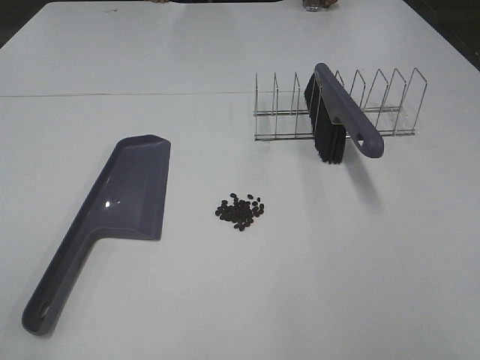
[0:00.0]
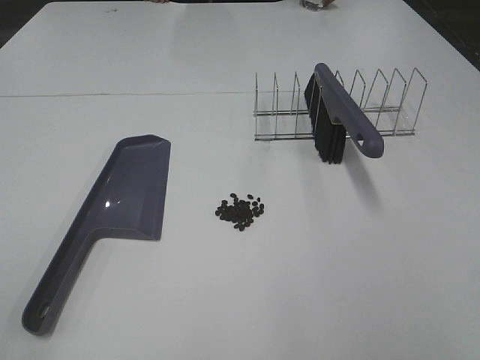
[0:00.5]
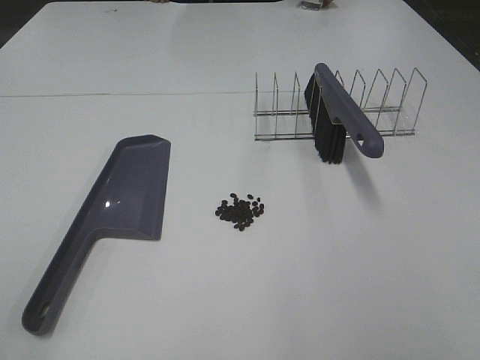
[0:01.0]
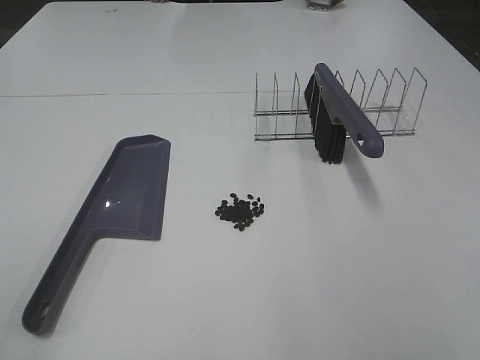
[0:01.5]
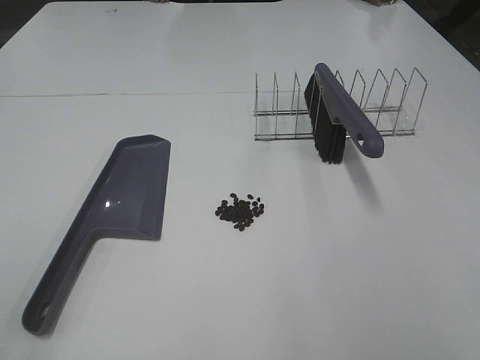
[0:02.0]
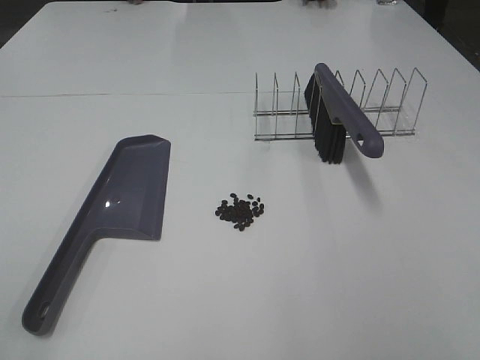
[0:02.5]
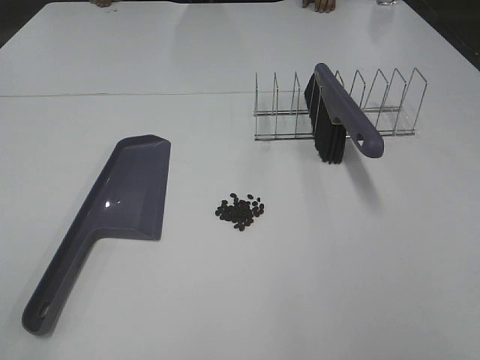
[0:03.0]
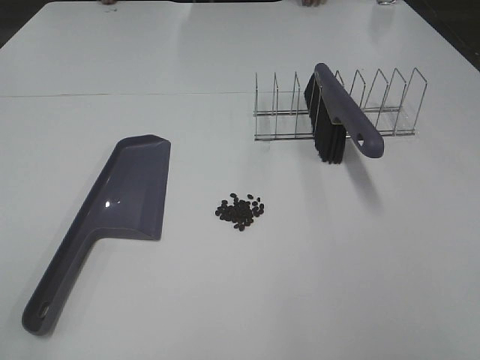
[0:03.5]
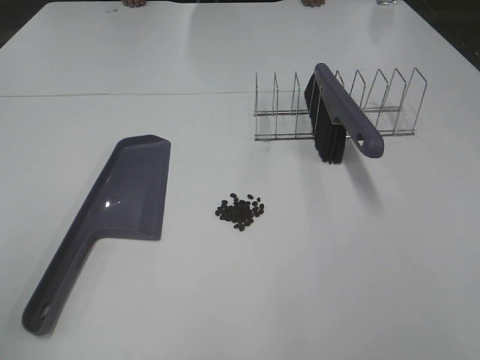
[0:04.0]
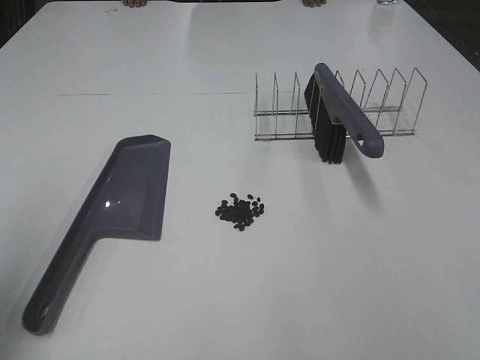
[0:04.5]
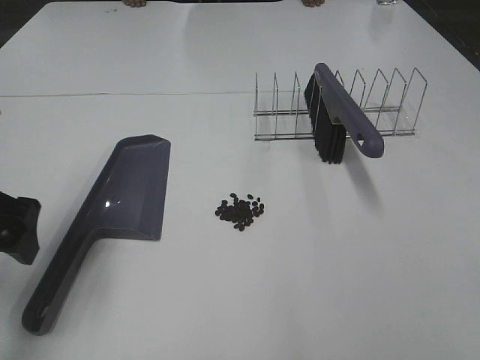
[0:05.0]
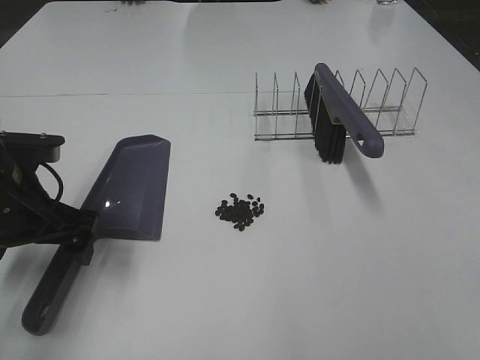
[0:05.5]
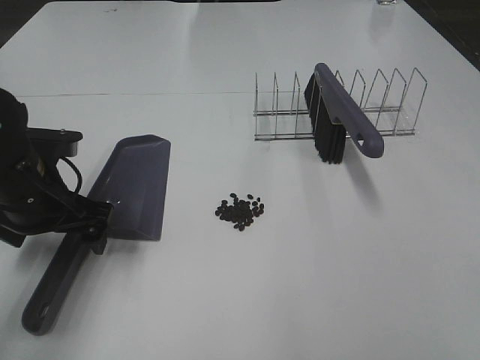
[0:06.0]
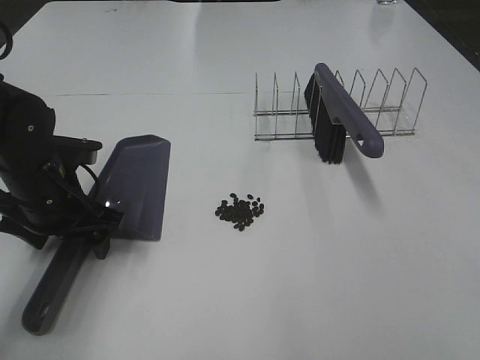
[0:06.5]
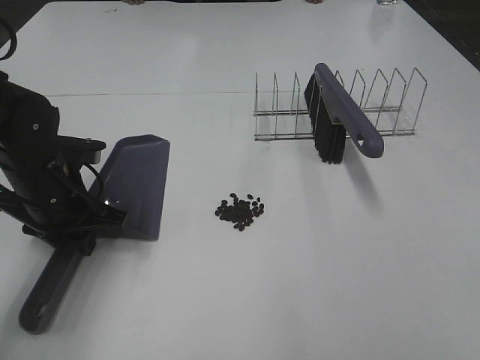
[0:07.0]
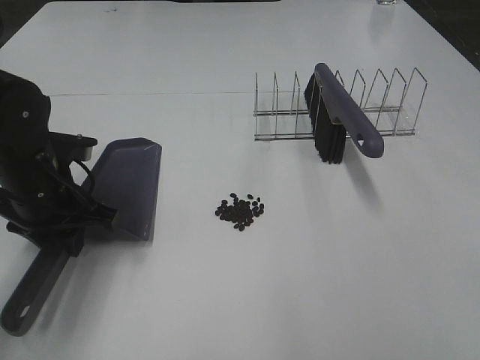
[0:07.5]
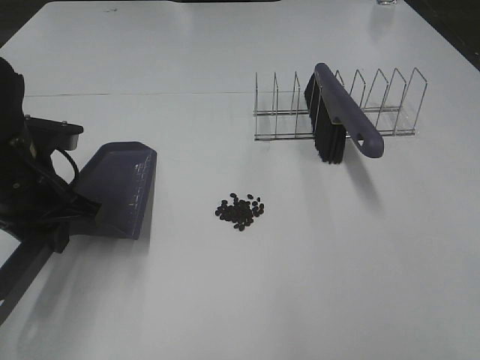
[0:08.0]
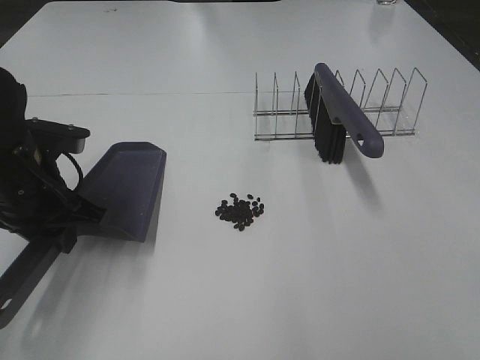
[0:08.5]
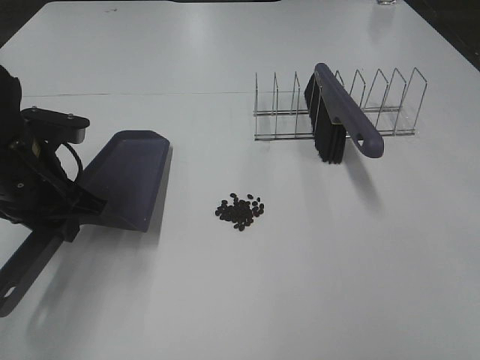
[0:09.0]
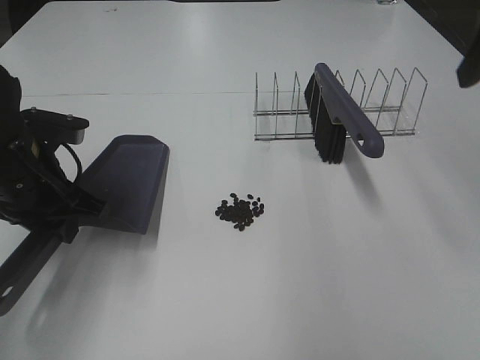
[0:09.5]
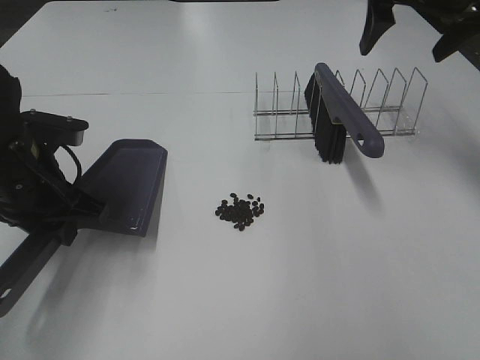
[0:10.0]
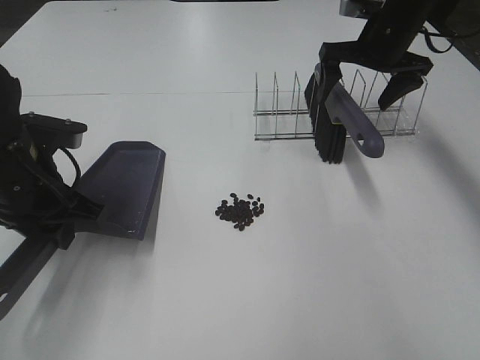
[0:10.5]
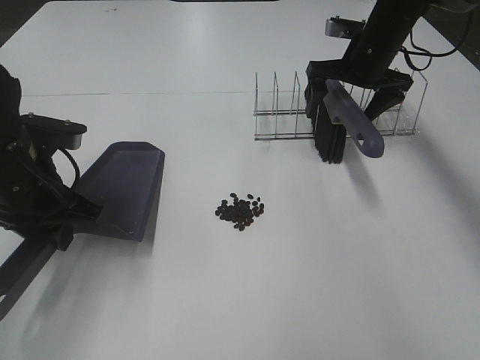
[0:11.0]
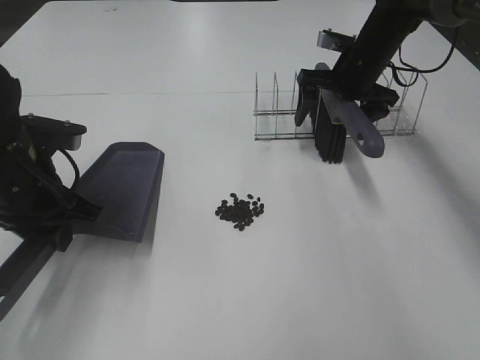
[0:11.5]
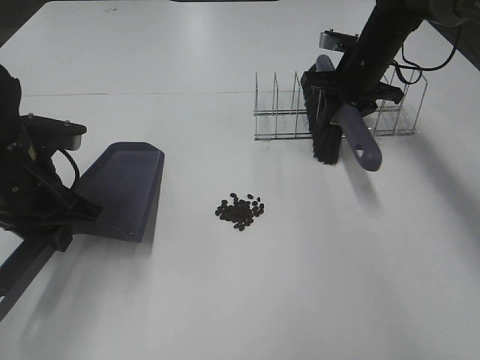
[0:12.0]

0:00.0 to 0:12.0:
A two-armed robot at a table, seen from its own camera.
Task of the whole recording: Sweep Coffee Bean.
Step, 0:00.0 to 0:07.0: Left hand: grab the dustpan.
Step, 0:08.5 to 0:12.0: Right hand:grab the broom.
0:00.0 to 0:02.0: Both grippers stay about where they are.
0:04.0 to 0:06.0: The left gripper is displaced forward, downward and to the right by roughly 30 cm.
0:06.0 to 0:08.0: The left gripper closes.
0:08.0 to 0:10.0: The right gripper travels forward by roughly 40 cm, and opens.
0:10.0 to 0:12.0: The right gripper moves downward and forward, roughly 15 cm, and closes up.

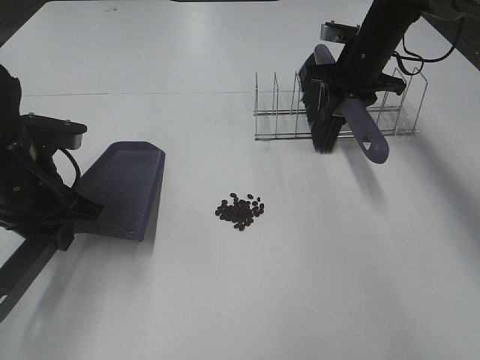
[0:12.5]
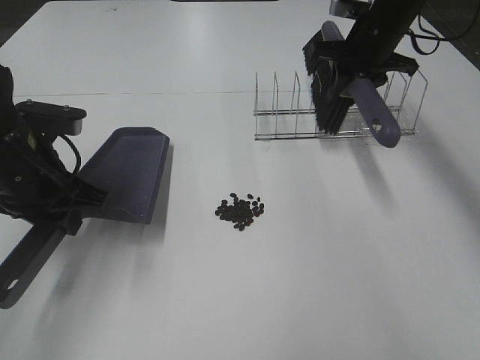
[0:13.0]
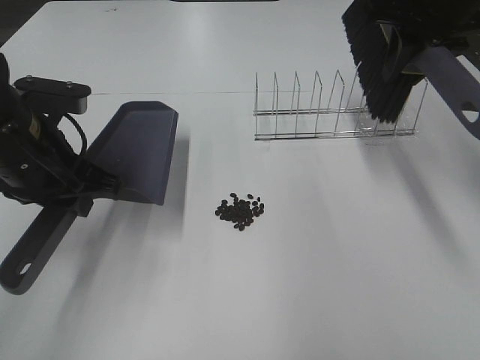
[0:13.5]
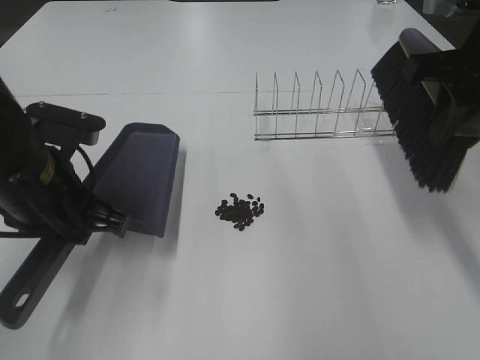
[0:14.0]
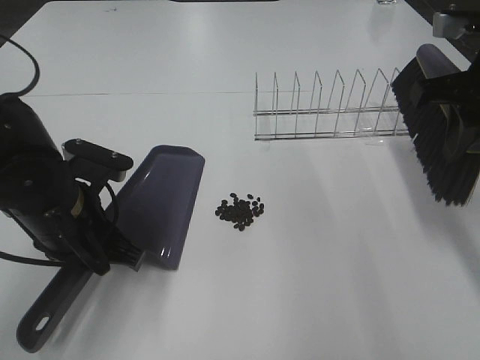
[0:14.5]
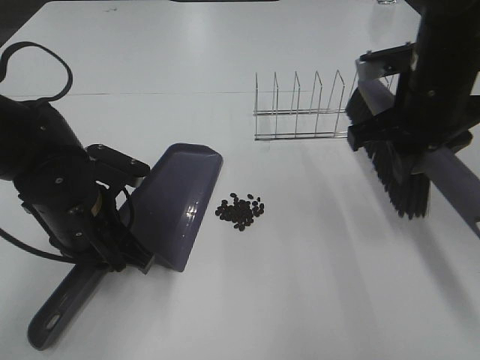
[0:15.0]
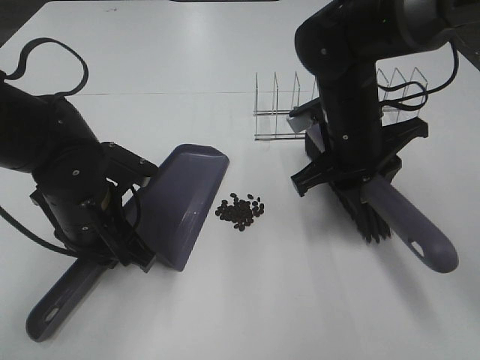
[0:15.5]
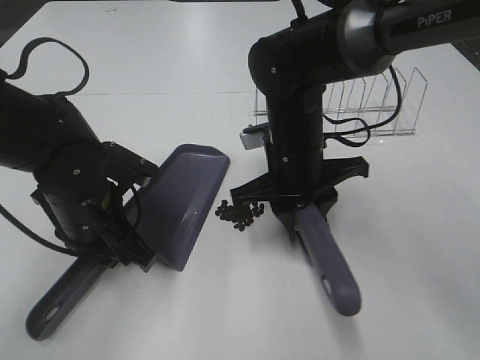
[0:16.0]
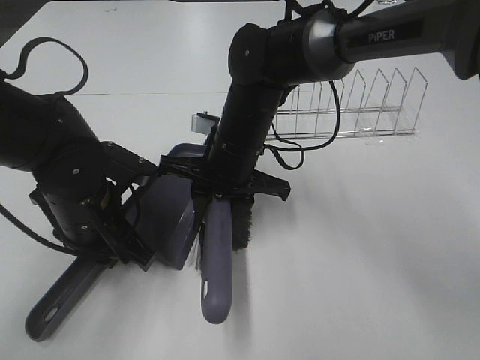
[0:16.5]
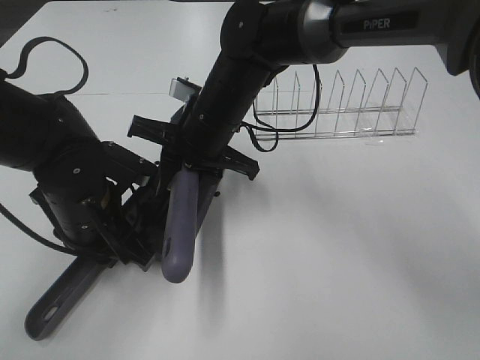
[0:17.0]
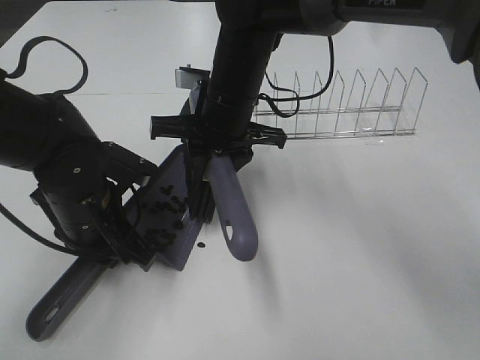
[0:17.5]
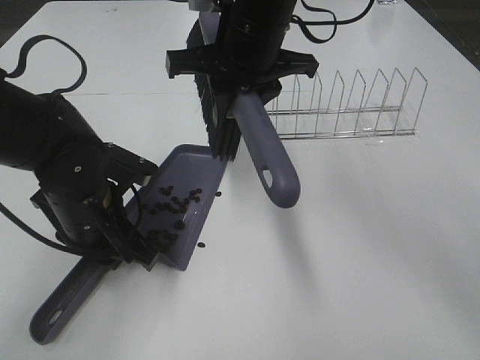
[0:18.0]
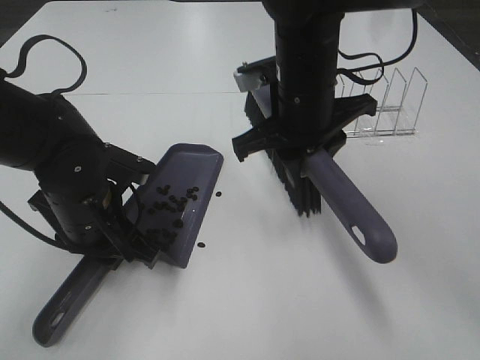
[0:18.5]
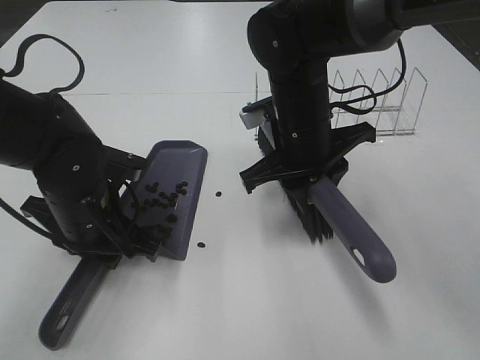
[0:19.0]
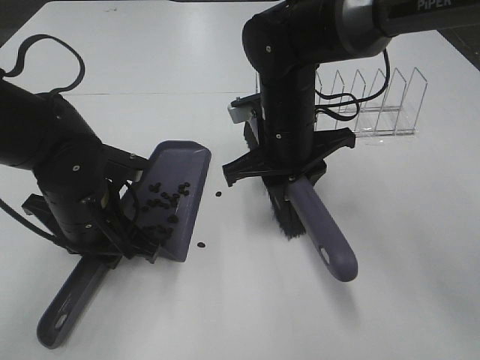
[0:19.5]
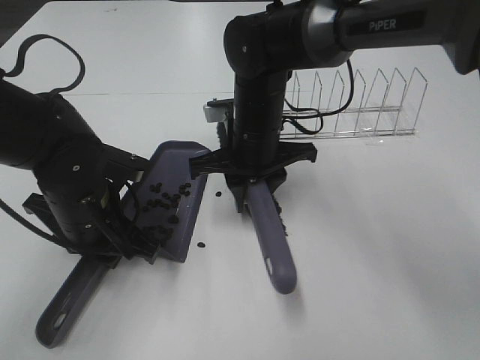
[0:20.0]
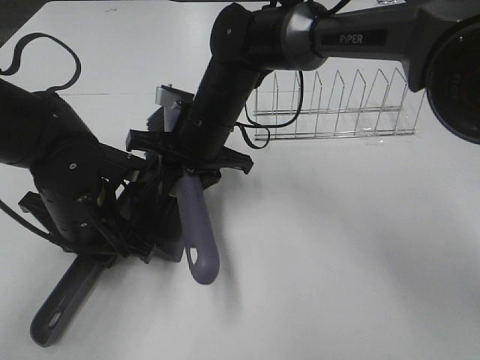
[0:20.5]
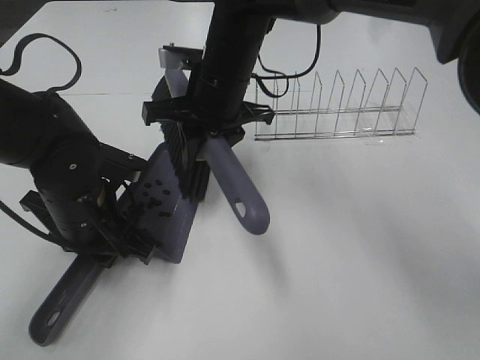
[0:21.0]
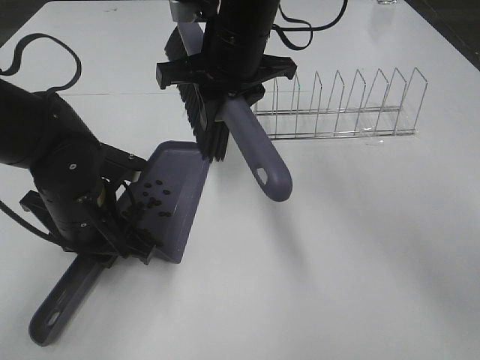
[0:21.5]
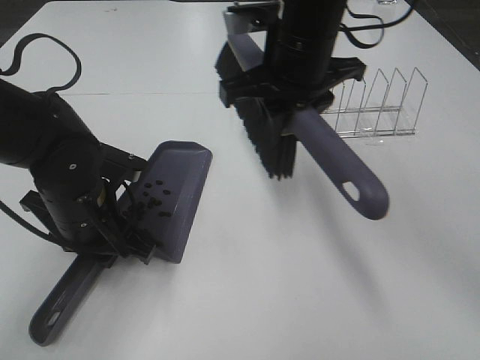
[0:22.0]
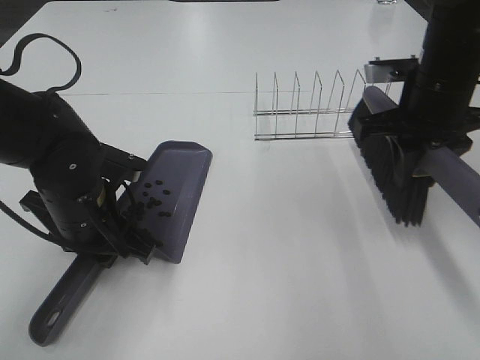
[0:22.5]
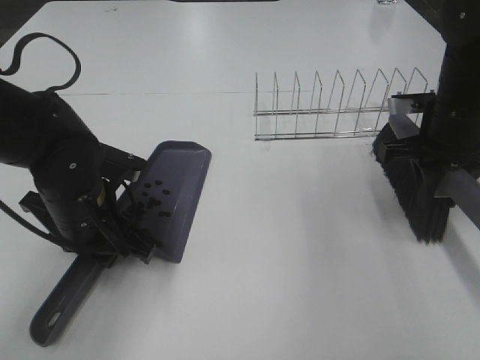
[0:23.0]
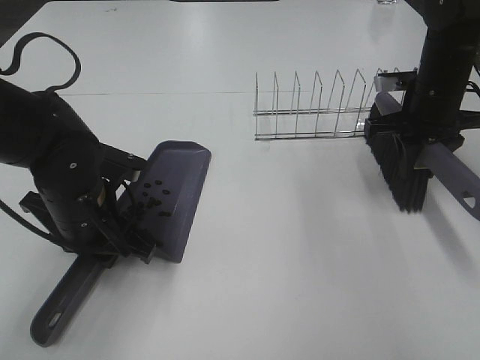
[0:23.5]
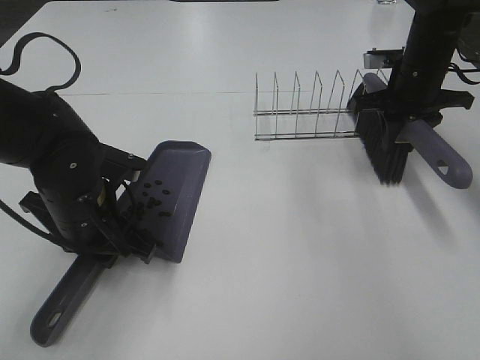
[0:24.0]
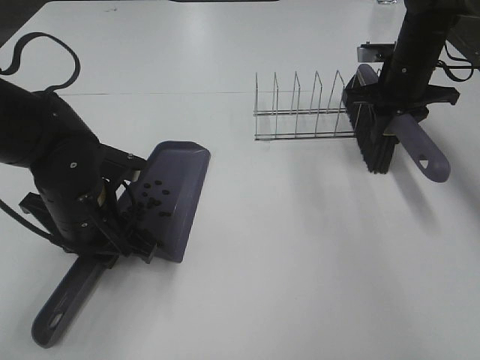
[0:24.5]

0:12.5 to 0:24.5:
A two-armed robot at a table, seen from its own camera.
Task of the whole recording: Sweep Coffee Bean.
Step, 0:12.5 to 0:15.5: Left hand: move the dustpan to the left side of the coffee beans.
Step, 0:12.5 to 0:20.5: Right hand:sweep the coffee beans into the dustpan.
0:12.5 to 0:14.5: The right gripper is displaced backward and upward by approximately 25 cm; the left gripper ends up about 5 cm from where it was.
0:14.5 to 0:16.5: The right gripper heads to the left and downward, covering approximately 30 cm.
0:16.5 to 0:18.5: The right gripper shifts some 10 cm upward and to the right.
0:18.5 to 0:20.5: The right gripper is displaced to the left and downward by about 10 cm.
0:20.5 to 0:22.5: The right gripper moves to the right, some 25 cm.
0:22.5 to 0:24.5: The right gripper is displaced forward and downward by roughly 15 cm.

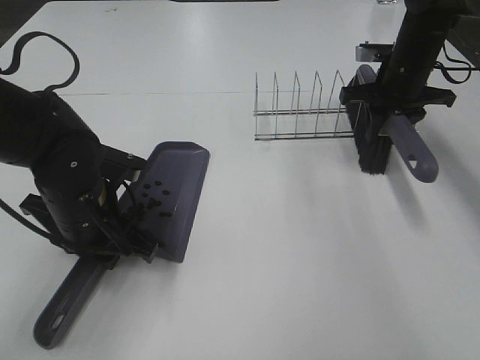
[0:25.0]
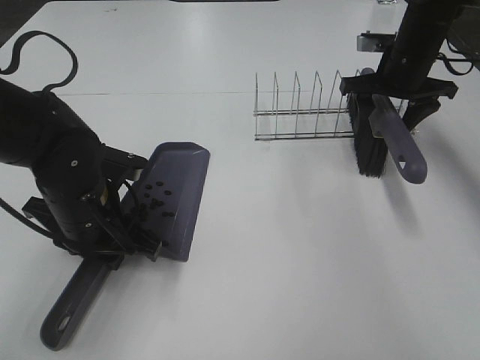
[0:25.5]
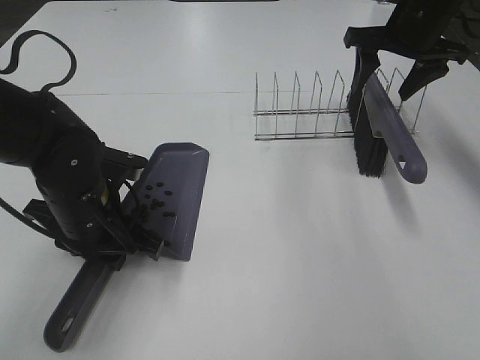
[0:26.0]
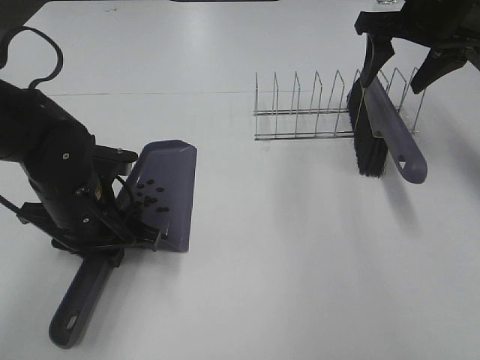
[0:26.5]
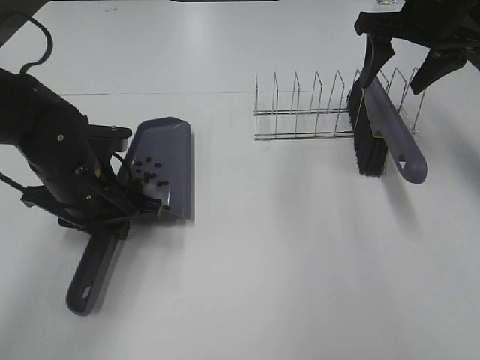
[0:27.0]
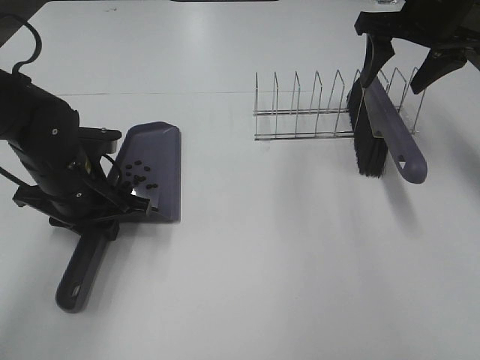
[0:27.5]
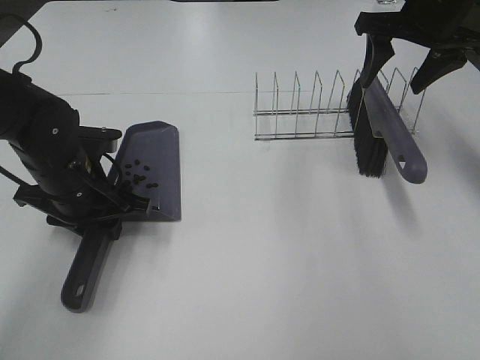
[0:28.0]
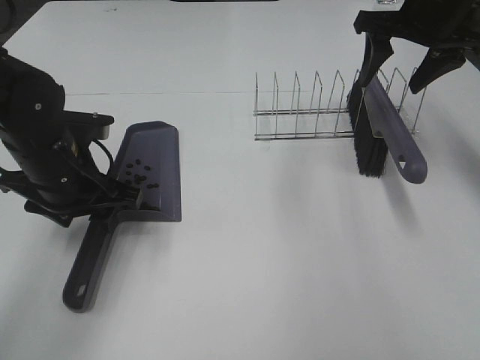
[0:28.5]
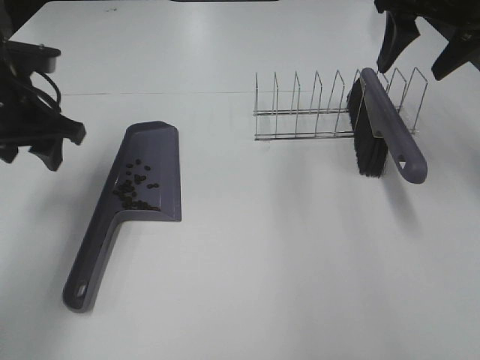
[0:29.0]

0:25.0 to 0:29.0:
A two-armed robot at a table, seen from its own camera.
Task of the whole recording: Sweep Coffee Bean.
Step, 0:26.0 to 0:28.5: Left hand:place the dustpan on the table.
0:25.0 to 0:27.0: The right gripper goes roughly 10 cm upward, and opens its fingers.
0:27.0 to 0:29.0: The right gripper shifts by roughly 5 cm, while the left gripper is displaced upward, to the left and forward by about 15 cm.
